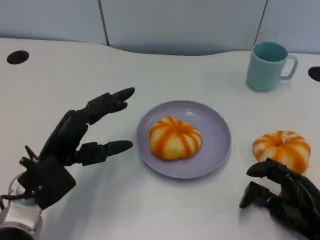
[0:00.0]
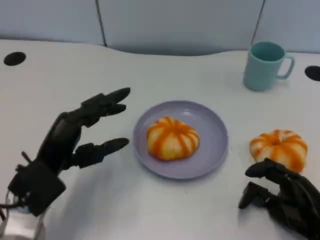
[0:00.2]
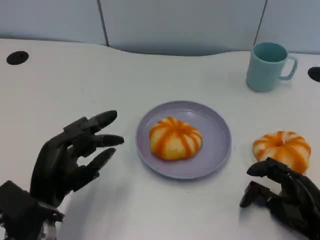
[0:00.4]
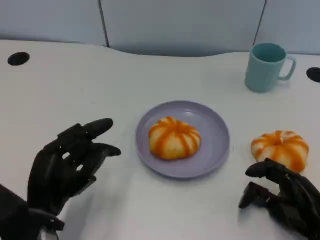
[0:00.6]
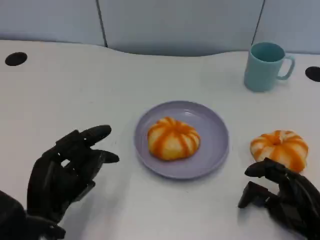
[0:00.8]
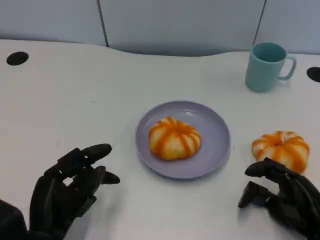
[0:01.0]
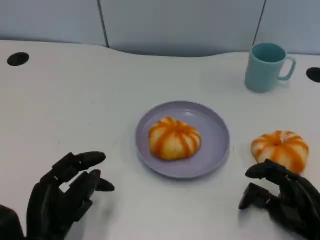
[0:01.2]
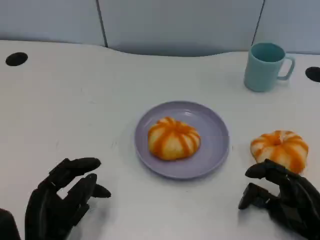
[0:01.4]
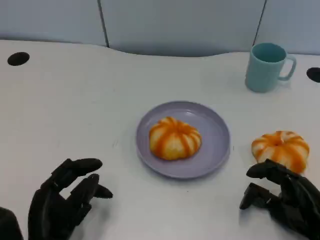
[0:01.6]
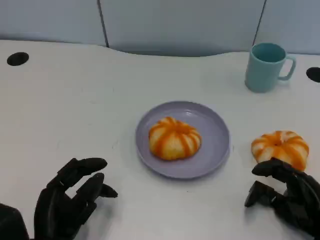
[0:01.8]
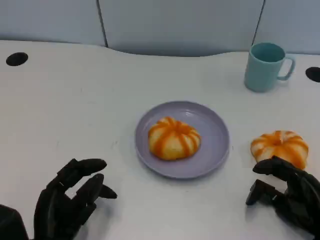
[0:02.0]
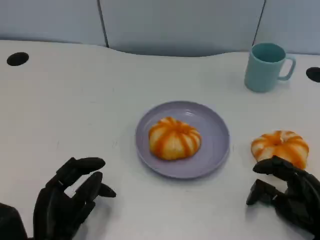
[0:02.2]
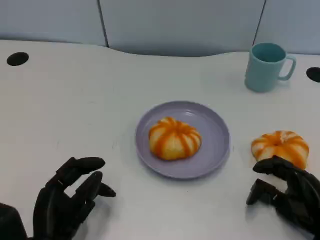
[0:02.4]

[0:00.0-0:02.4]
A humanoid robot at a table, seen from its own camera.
Task of the whole recording: Grasp the bread from the table and place it into the plate.
0:00.0 to 0:01.2: The left hand shifts approximately 10 cm backward.
0:01.2 to 0:02.4: The hands stay close to where they were, moving slightly.

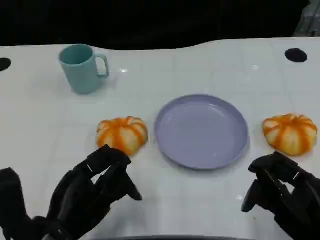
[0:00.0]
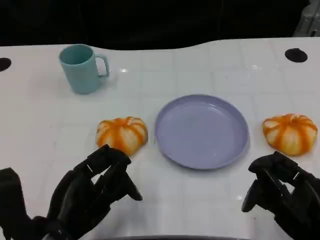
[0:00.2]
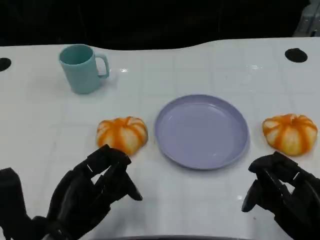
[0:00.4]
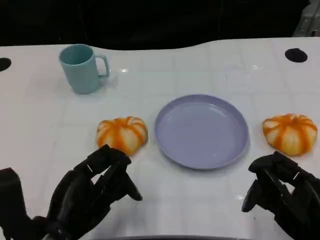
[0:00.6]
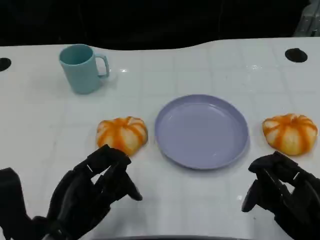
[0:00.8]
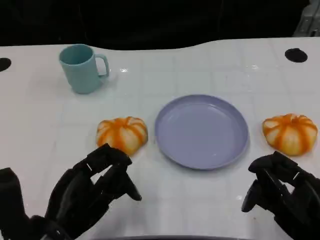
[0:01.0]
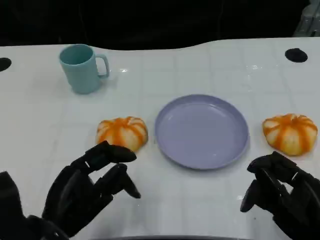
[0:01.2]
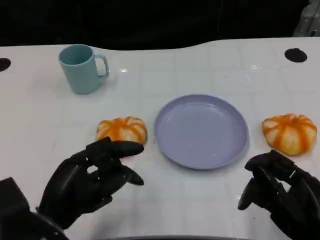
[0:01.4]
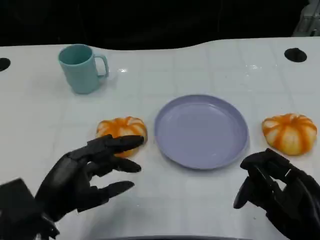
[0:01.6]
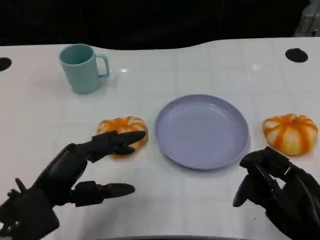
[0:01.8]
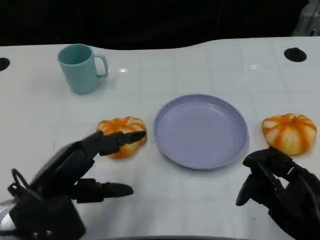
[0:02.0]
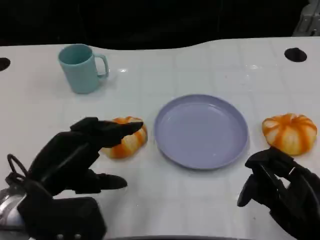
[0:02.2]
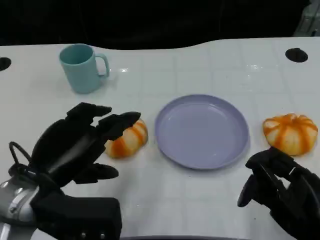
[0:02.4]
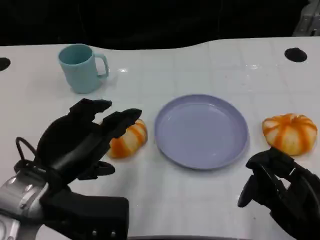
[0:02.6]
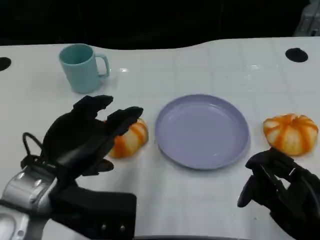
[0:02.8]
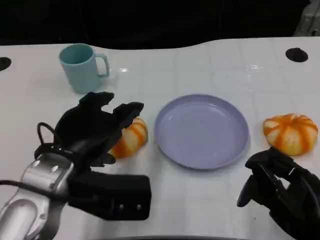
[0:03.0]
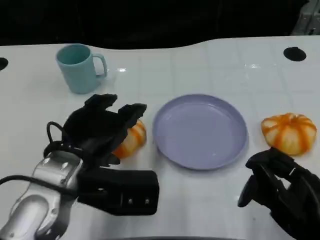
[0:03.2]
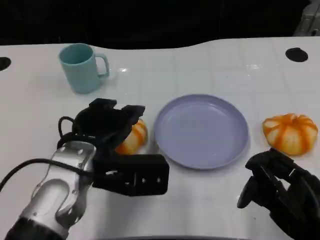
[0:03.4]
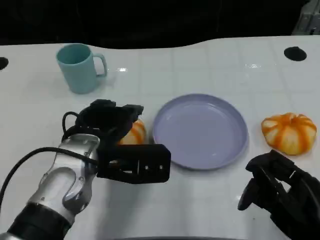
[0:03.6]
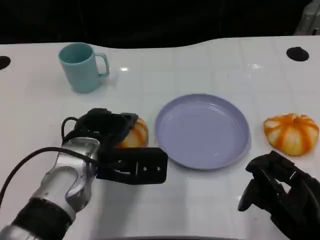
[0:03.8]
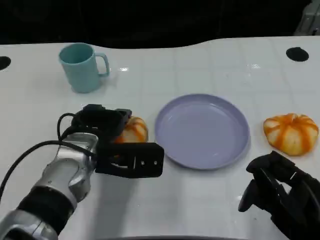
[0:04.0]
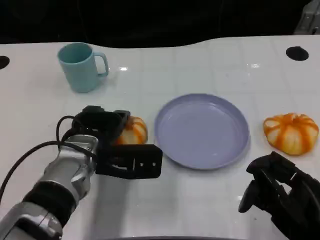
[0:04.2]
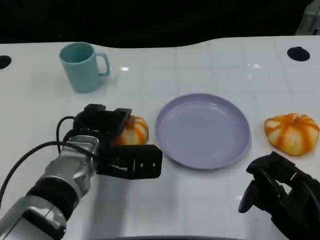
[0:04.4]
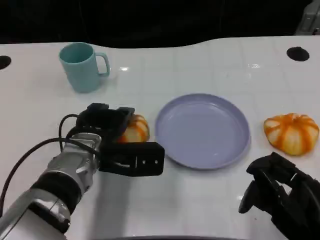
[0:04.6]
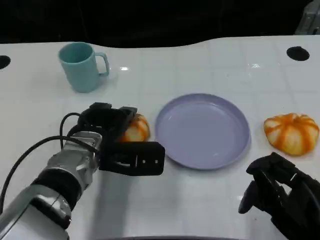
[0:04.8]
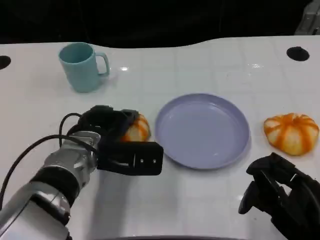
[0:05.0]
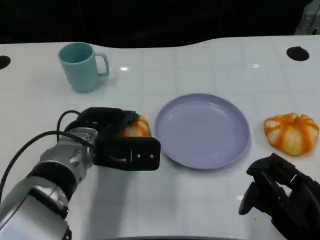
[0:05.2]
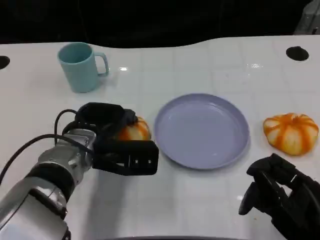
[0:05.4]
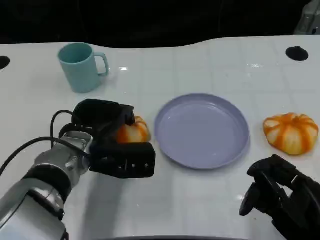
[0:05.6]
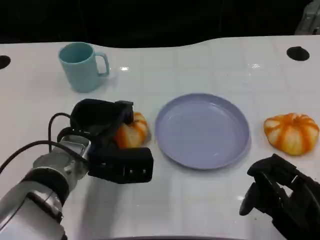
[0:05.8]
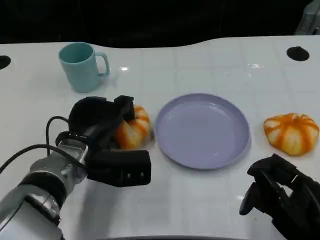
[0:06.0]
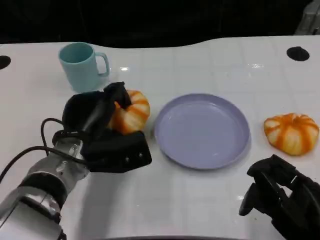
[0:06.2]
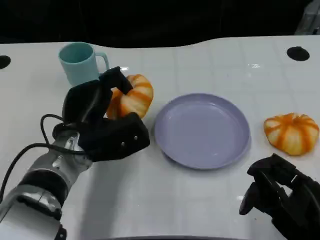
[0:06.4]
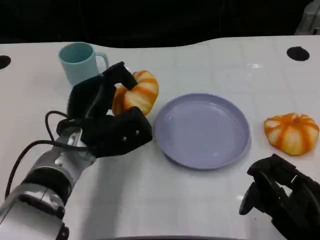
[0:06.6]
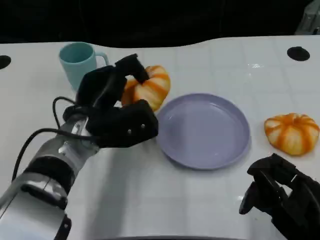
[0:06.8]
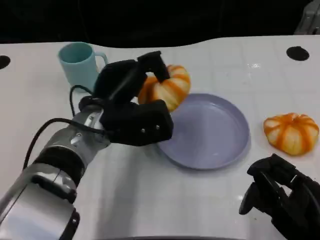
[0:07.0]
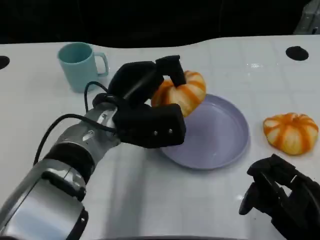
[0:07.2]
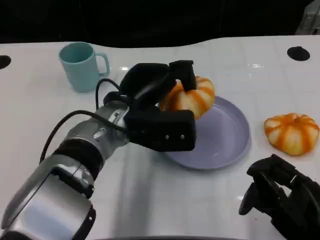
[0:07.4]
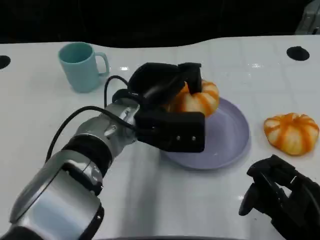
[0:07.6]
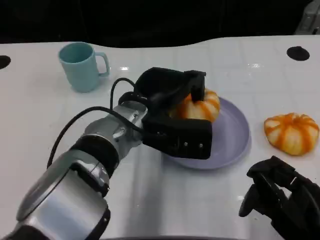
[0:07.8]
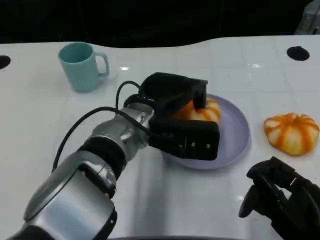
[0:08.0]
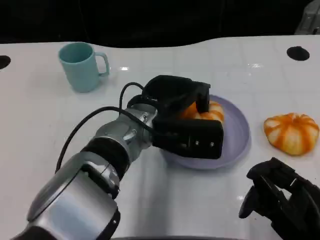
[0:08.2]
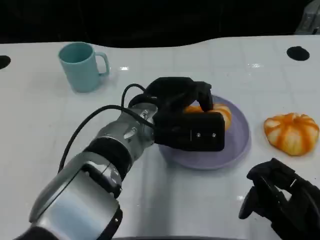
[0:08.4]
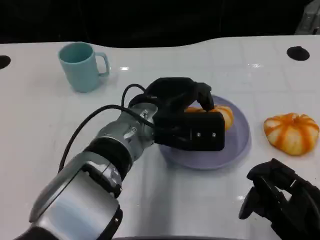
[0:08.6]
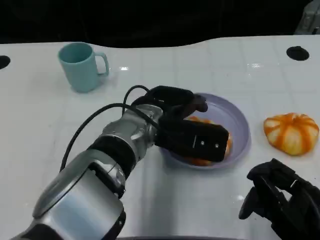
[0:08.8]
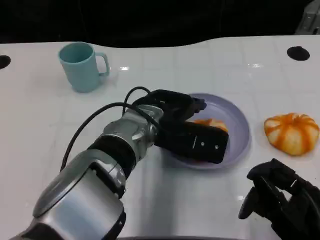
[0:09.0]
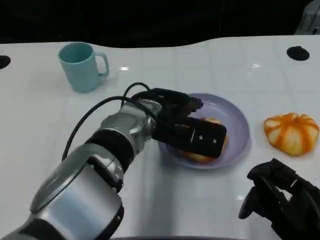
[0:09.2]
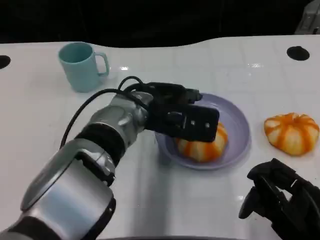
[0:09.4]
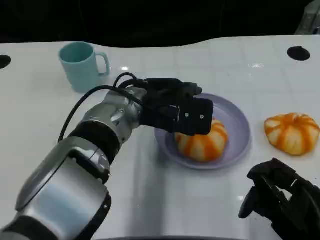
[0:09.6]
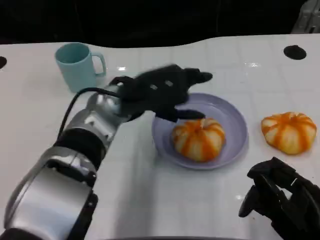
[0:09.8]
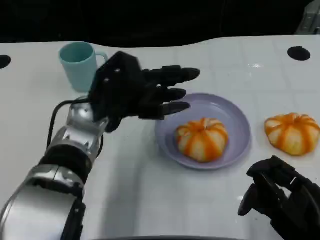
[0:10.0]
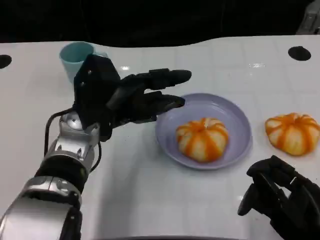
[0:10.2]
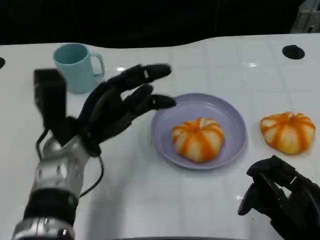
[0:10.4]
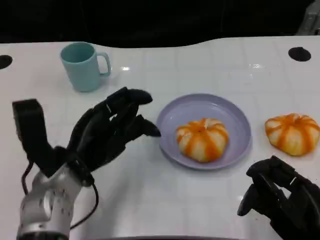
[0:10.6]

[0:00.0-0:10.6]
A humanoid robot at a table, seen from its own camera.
Task of the whole recording: Grasp the bread from the table and place it into the plate.
0:01.6 to 0:03.0: The left hand shifts roughly 10 cm upward and to the right.
0:03.0 to 0:04.6: The left hand is displaced forward and downward by some 10 cm.
0:06.0 to 0:07.6: The left hand moves to the right and upward, about 10 cm.
0:09.0 to 0:10.6: The left hand travels to the left and backward by about 15 cm.

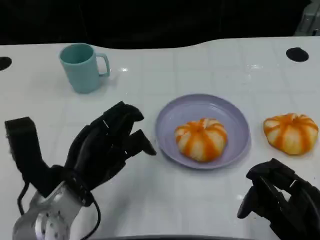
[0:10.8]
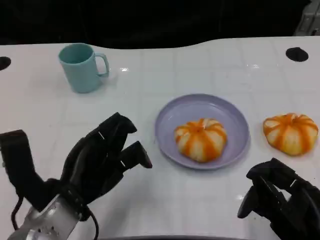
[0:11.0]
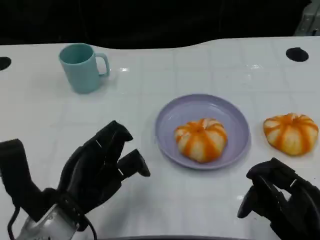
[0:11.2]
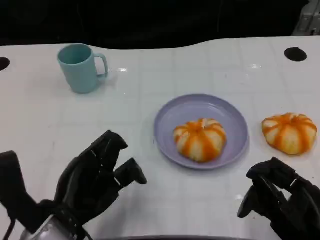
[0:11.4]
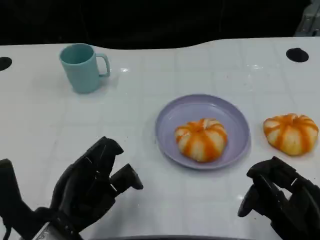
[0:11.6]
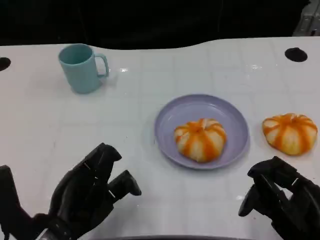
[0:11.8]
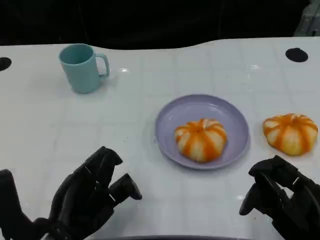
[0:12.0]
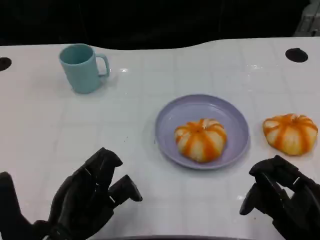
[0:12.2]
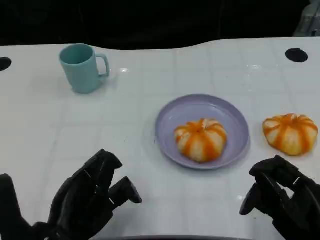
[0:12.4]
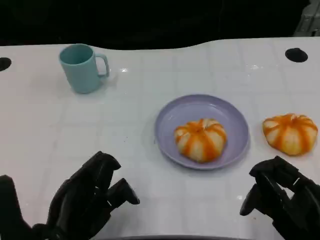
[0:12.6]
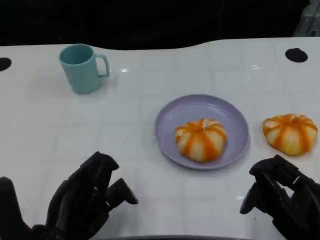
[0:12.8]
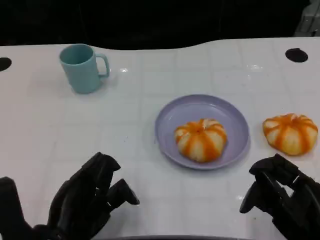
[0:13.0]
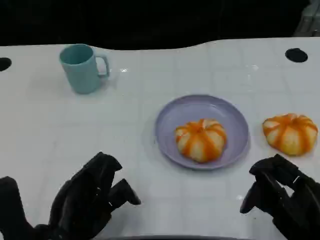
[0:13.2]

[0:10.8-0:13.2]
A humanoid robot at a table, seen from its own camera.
Task of the whole recording: Grasp the bread from the table and place it into the plate.
0:10.8 to 0:12.0: The left hand moves backward, approximately 5 cm.
0:12.0 to 0:13.2: Both hands stay about where they are.

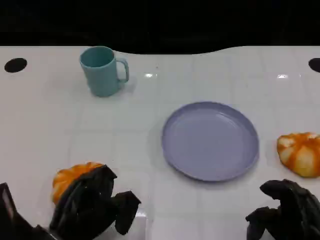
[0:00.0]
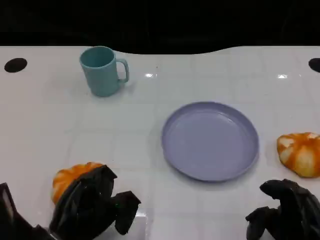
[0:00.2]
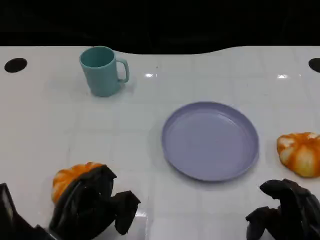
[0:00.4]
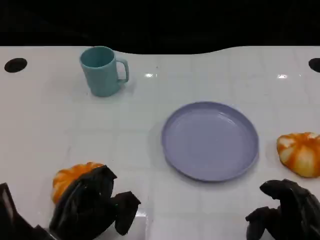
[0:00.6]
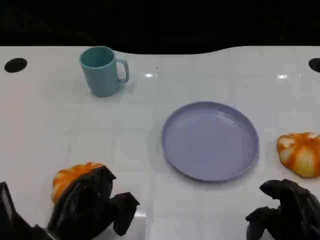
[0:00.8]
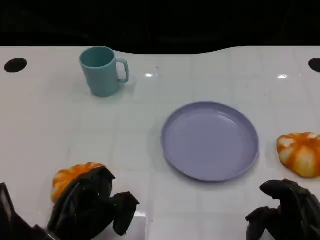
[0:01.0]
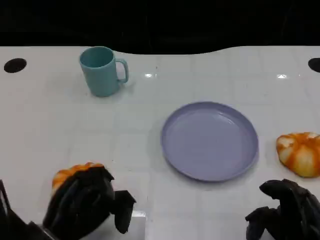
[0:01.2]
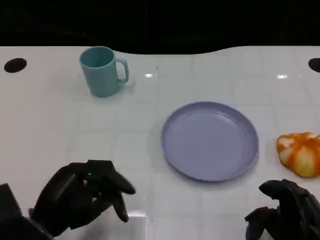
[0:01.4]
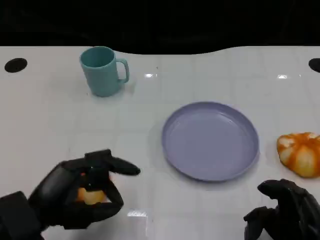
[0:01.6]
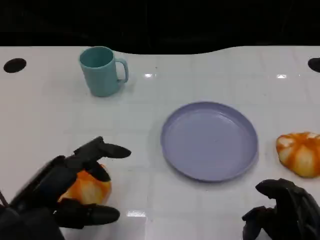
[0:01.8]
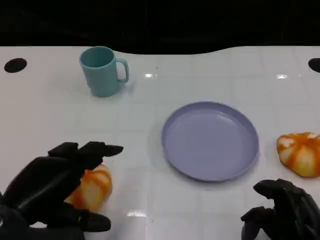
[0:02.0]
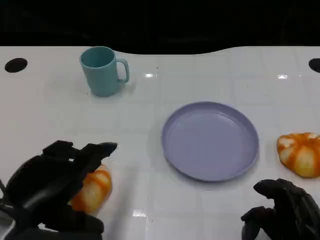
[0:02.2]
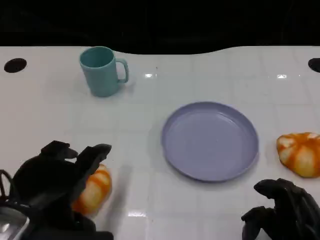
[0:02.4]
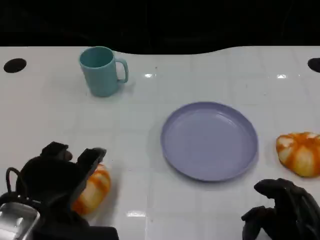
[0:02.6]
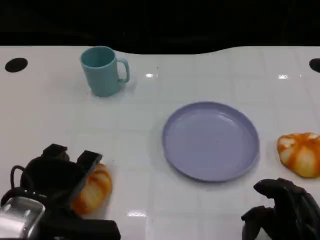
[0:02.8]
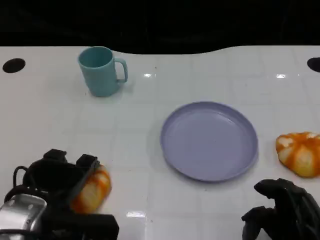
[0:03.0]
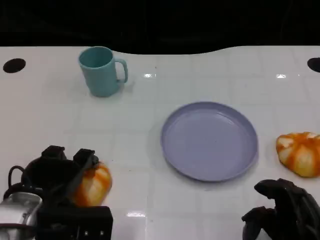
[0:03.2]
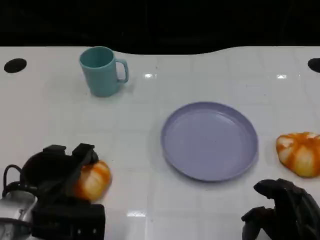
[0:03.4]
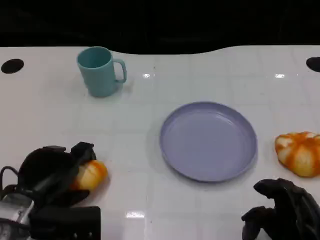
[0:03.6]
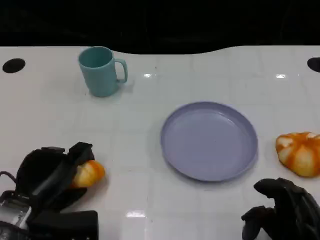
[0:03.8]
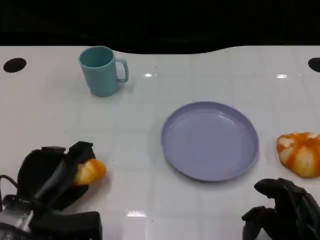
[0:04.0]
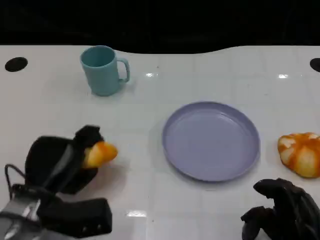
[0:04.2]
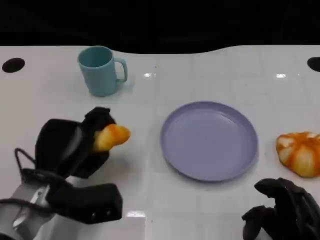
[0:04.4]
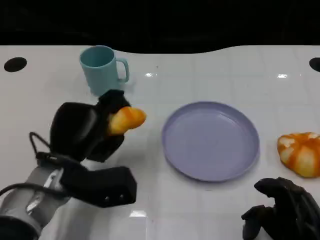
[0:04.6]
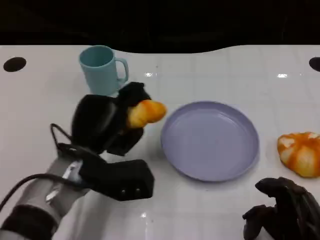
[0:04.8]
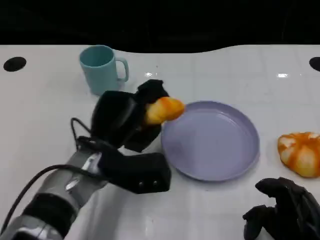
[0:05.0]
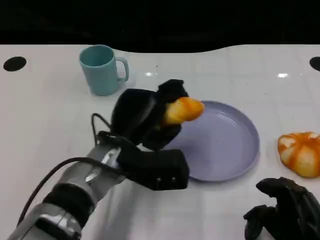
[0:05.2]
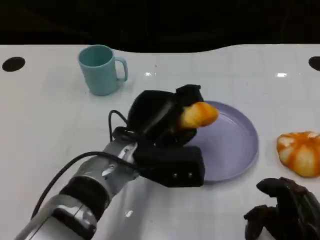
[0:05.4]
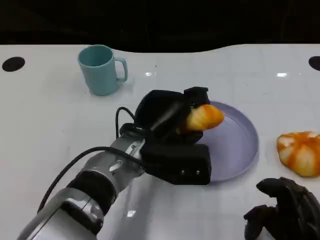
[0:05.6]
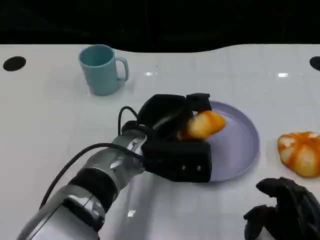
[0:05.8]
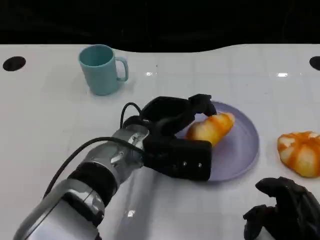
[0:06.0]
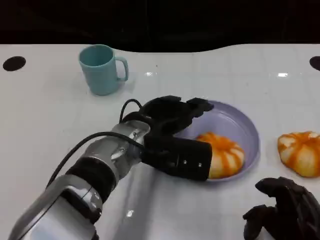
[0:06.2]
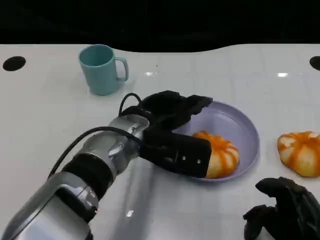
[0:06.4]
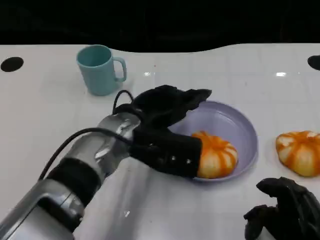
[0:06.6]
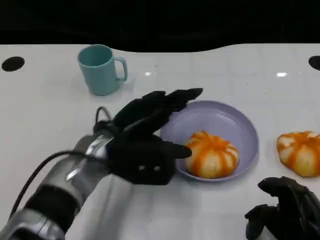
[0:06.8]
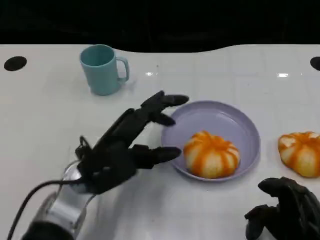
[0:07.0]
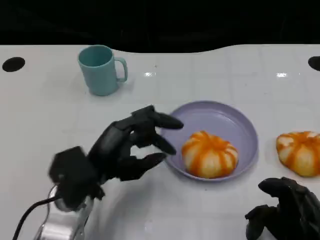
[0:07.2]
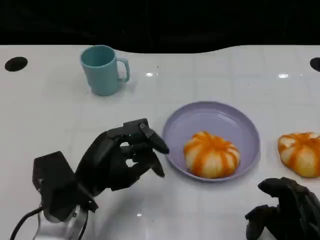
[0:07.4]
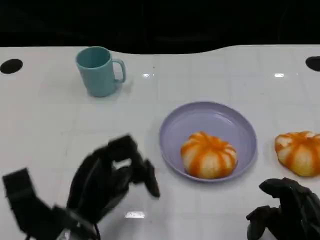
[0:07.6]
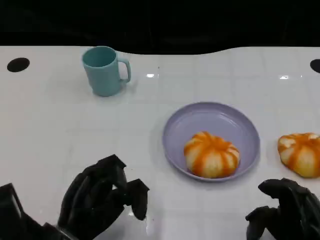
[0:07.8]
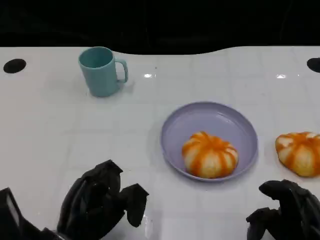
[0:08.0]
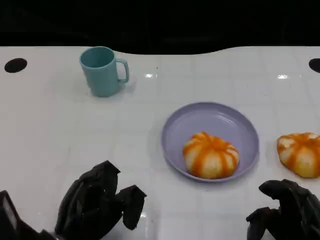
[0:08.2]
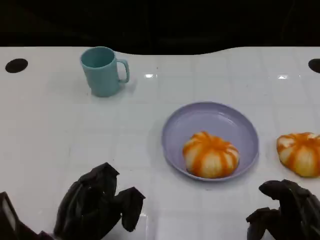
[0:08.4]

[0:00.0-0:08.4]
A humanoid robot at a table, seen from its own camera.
Task of the whole recording: Grasp the bread from the table and place it into the plate.
0:02.8 to 0:04.2: The left hand heads downward, covering roughly 5 cm.
0:04.2 to 0:05.6: The left hand shifts roughly 15 cm to the right.
0:05.6 to 0:07.0: The left hand shifts approximately 10 cm to the left.
0:07.0 to 0:08.4: The left hand goes about 10 cm backward and downward.
